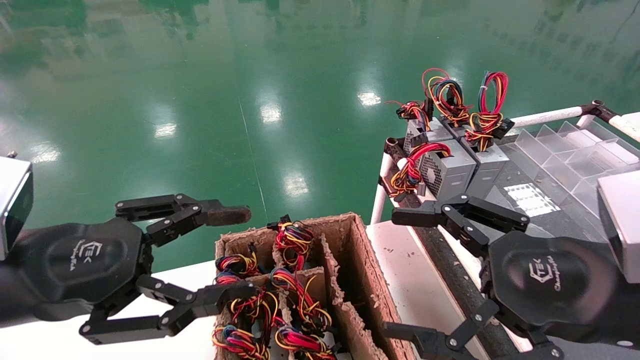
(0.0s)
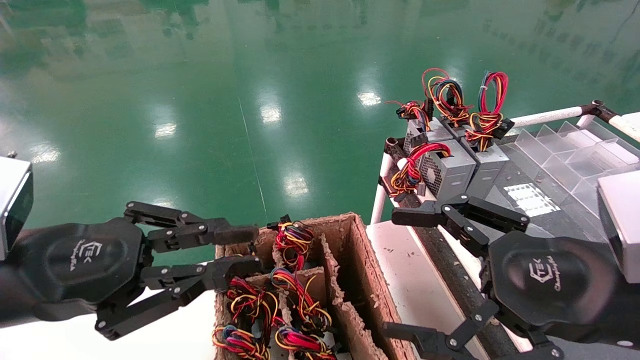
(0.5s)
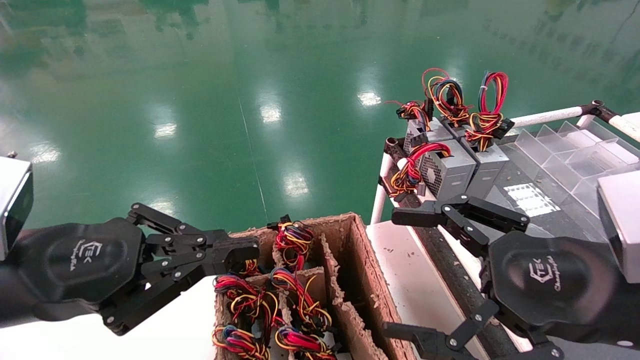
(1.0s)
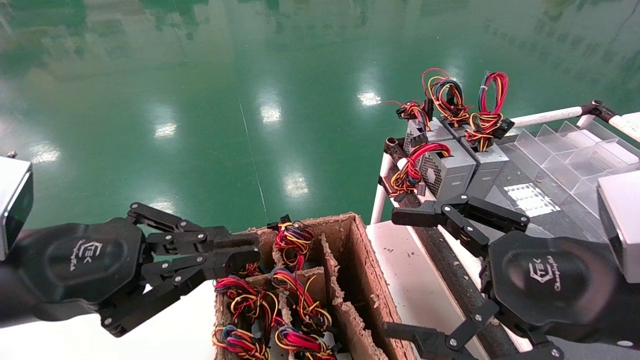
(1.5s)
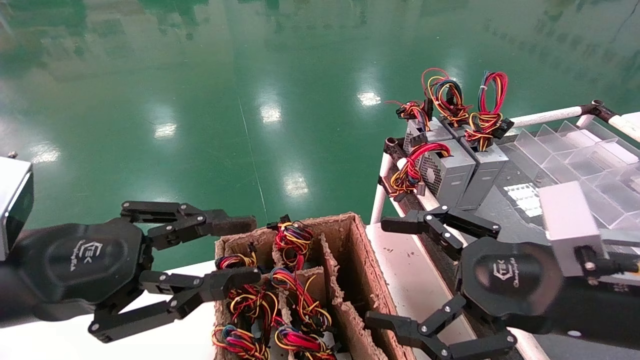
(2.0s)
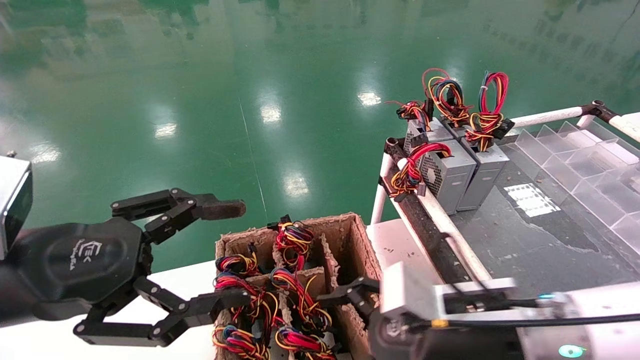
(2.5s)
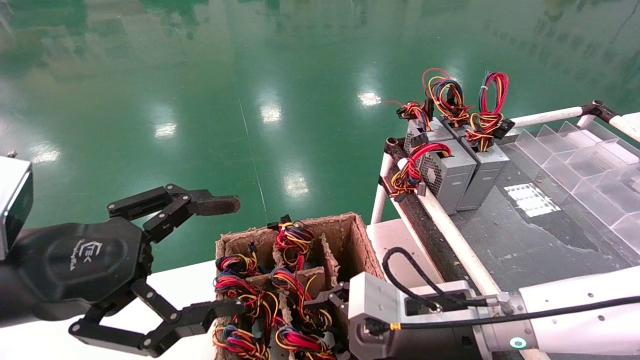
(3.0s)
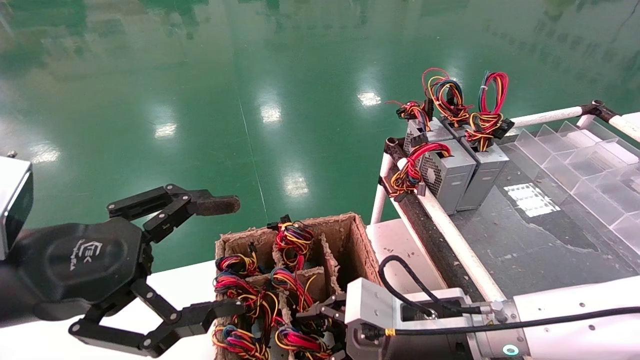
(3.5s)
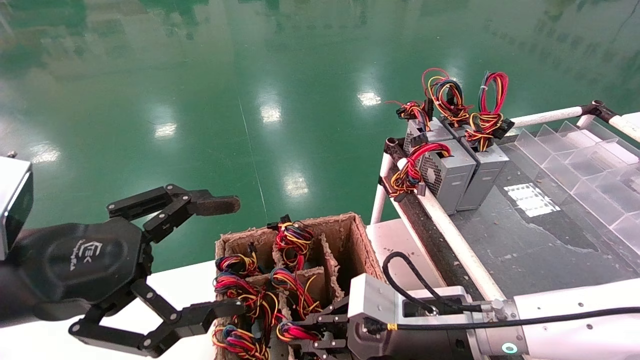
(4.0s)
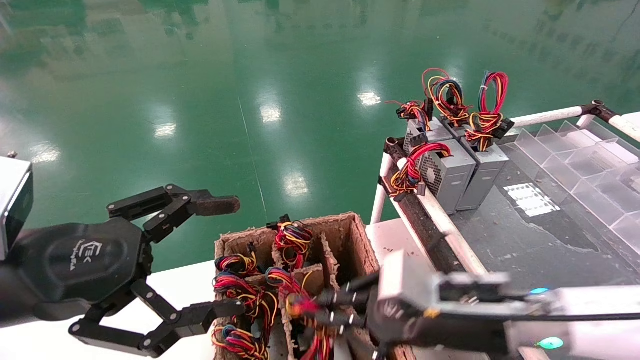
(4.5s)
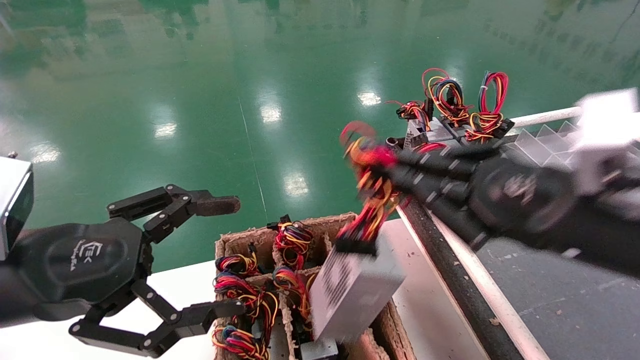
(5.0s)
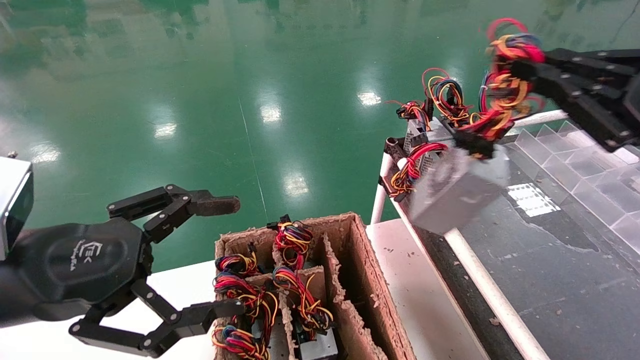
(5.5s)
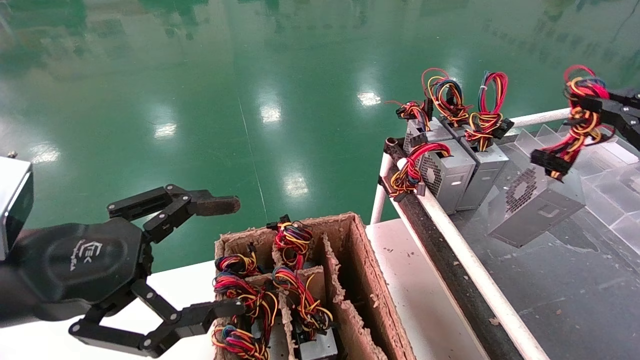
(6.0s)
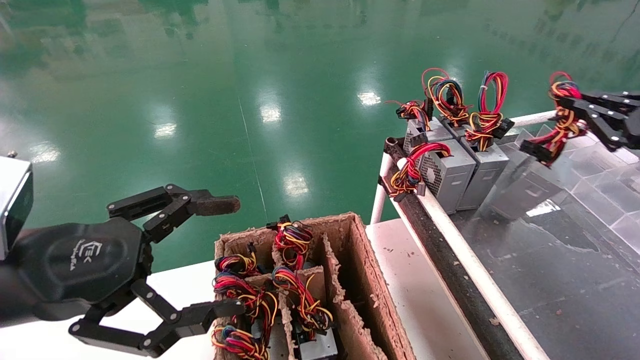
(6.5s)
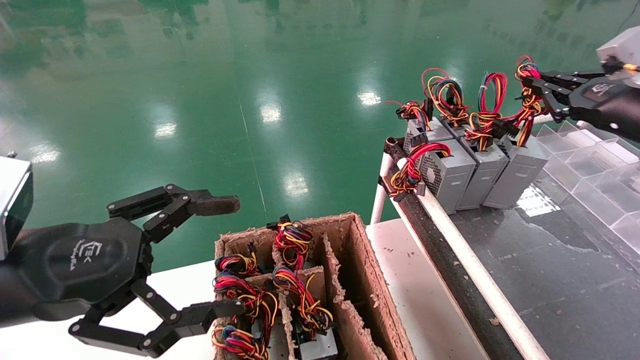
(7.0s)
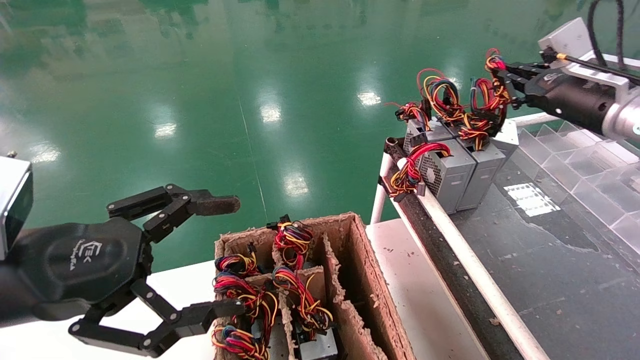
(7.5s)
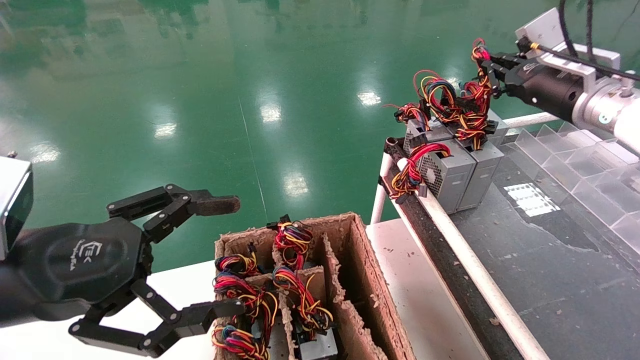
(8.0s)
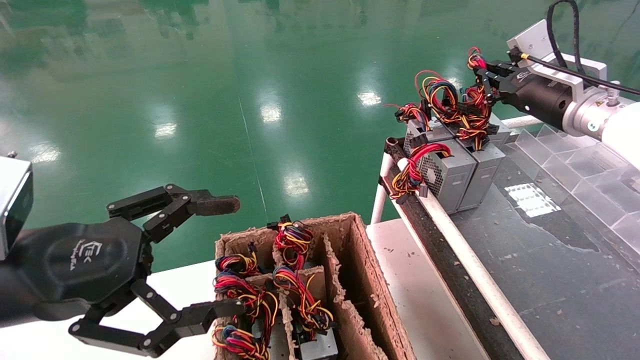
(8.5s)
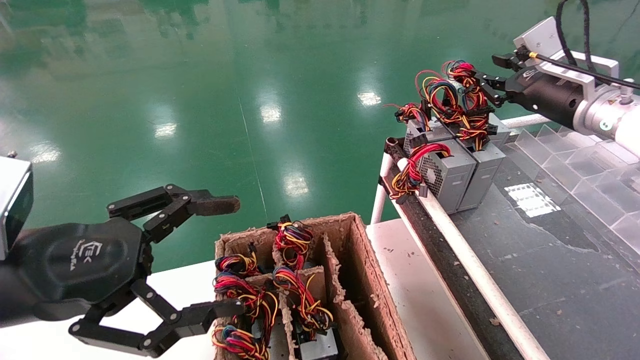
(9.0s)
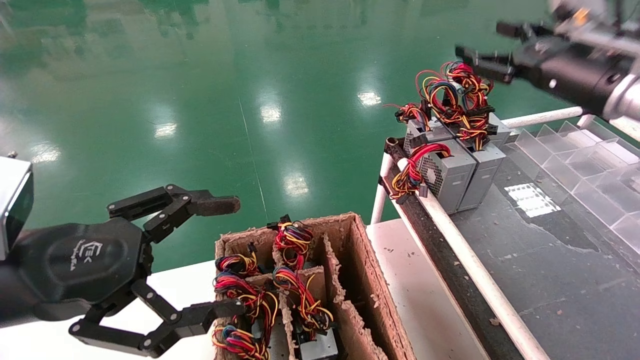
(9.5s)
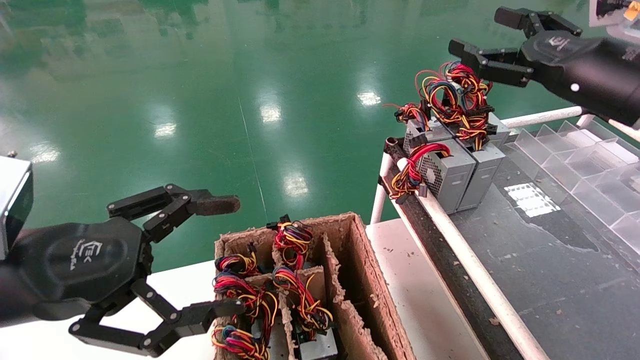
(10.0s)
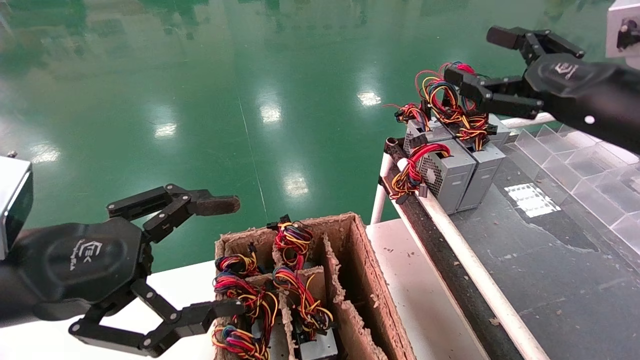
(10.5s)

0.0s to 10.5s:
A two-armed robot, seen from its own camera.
Step, 1.0s to 4.0s: Grab and lift the power supply from the large box.
Step, 4.5s to 8.5s: Place the power supply on the operating table.
0.0s to 2.0s: The grippers stay close to where they were, moving slightly.
2.0s to 4.0s: The left gripper opens up; the right gripper heads downward, to the left and forward, covering approximately 15 cm, and closes its fingers.
4.0s to 6.5s: The right gripper shifts roughly 35 cm to the right and upward.
6.5s to 8.5s: The right gripper goes roughly 20 cm forward and to the left.
8.5s to 10.5s: The right gripper is displaced backward by about 15 cm, and opens its fingers.
